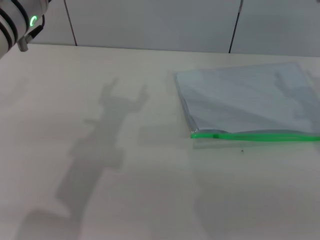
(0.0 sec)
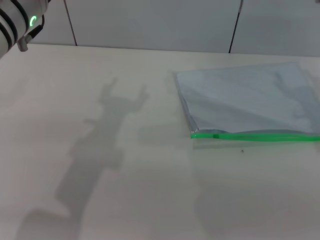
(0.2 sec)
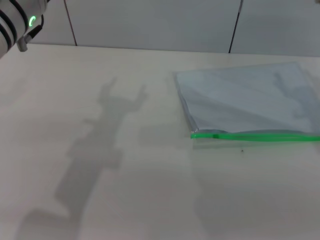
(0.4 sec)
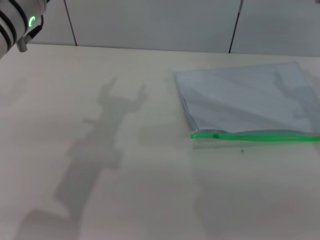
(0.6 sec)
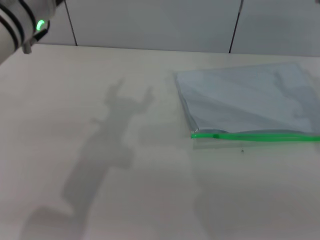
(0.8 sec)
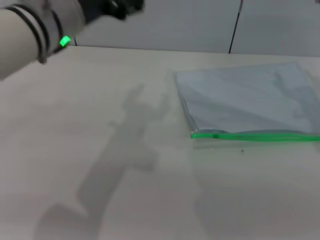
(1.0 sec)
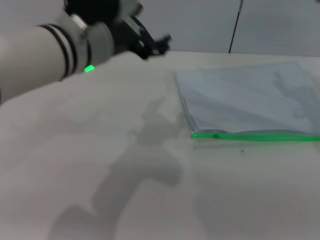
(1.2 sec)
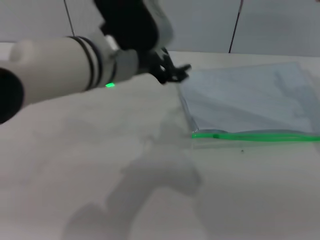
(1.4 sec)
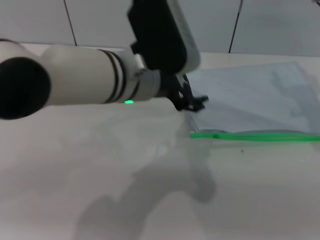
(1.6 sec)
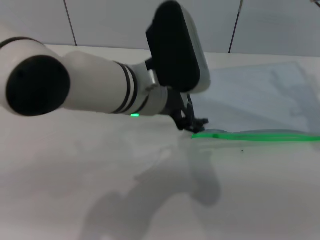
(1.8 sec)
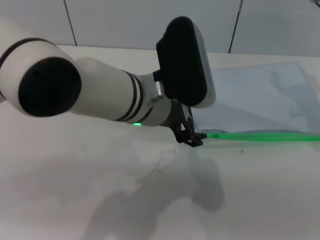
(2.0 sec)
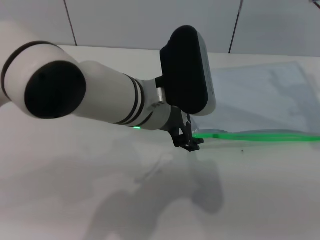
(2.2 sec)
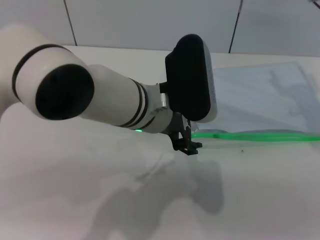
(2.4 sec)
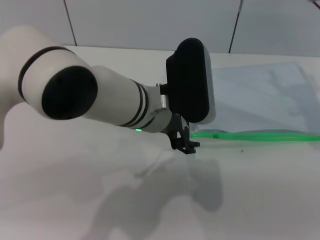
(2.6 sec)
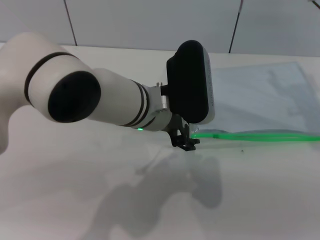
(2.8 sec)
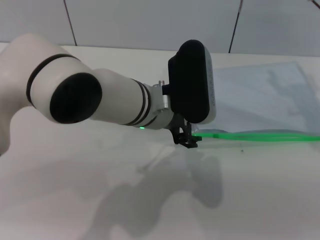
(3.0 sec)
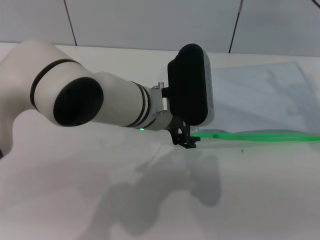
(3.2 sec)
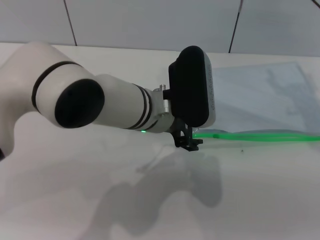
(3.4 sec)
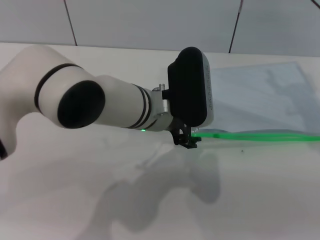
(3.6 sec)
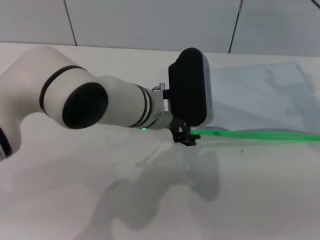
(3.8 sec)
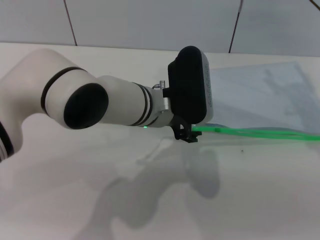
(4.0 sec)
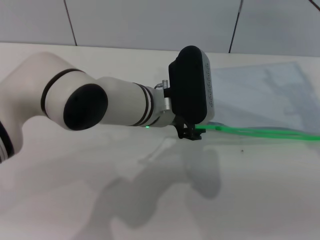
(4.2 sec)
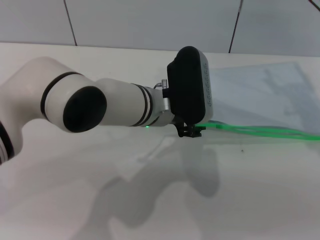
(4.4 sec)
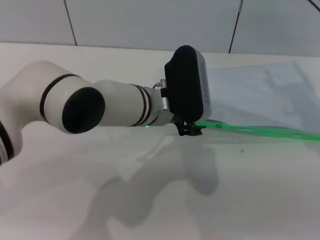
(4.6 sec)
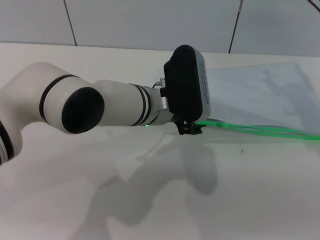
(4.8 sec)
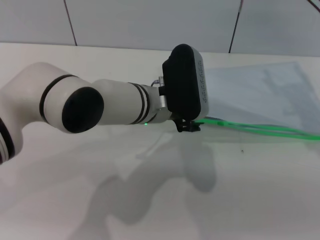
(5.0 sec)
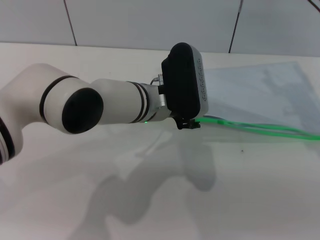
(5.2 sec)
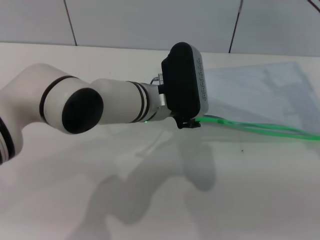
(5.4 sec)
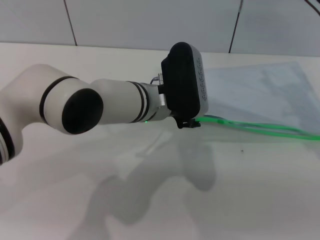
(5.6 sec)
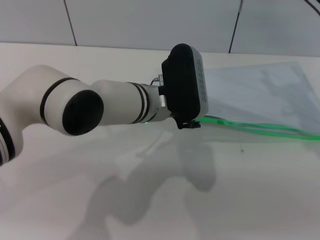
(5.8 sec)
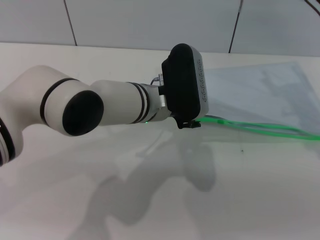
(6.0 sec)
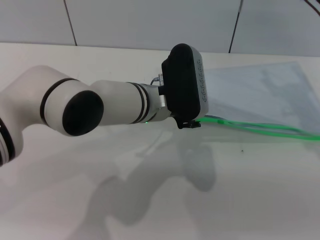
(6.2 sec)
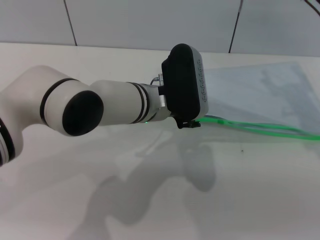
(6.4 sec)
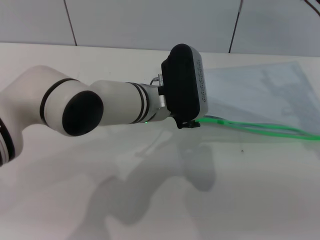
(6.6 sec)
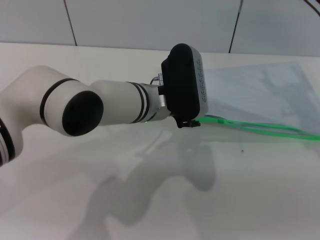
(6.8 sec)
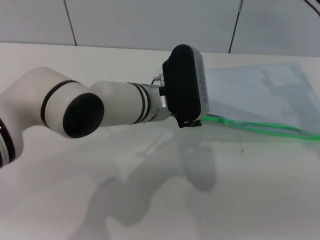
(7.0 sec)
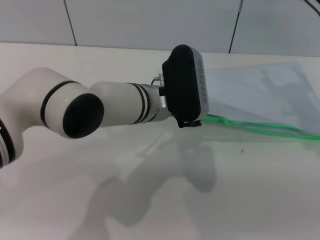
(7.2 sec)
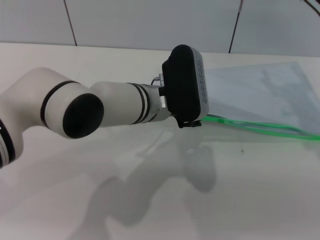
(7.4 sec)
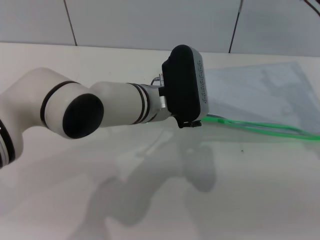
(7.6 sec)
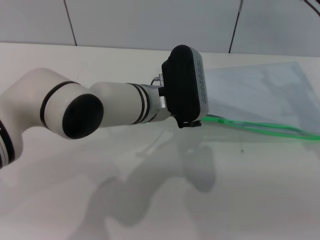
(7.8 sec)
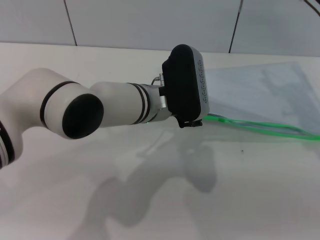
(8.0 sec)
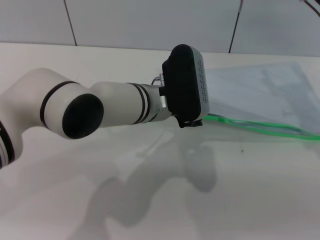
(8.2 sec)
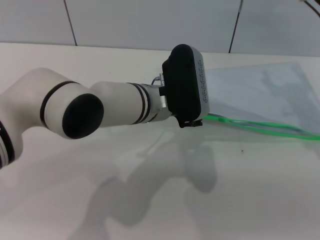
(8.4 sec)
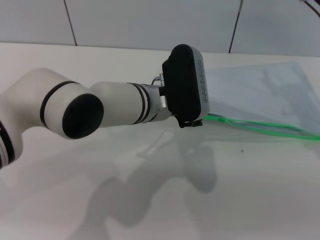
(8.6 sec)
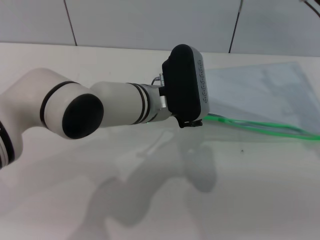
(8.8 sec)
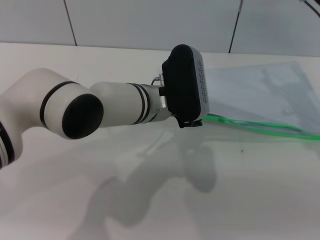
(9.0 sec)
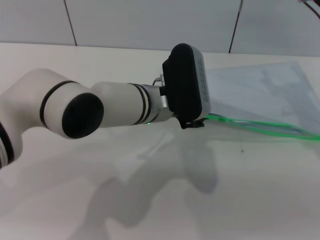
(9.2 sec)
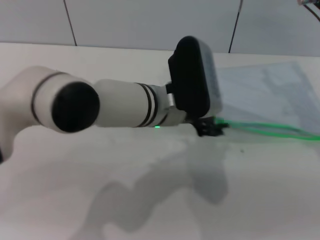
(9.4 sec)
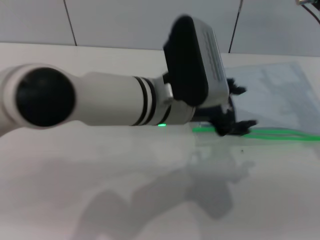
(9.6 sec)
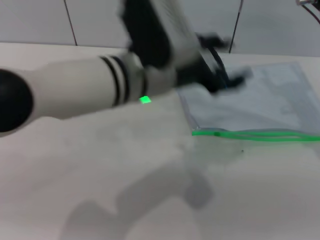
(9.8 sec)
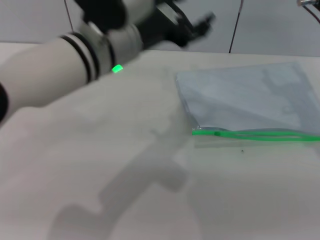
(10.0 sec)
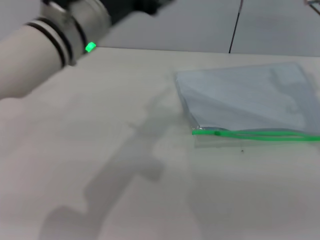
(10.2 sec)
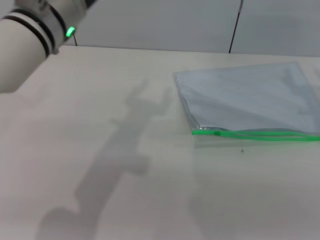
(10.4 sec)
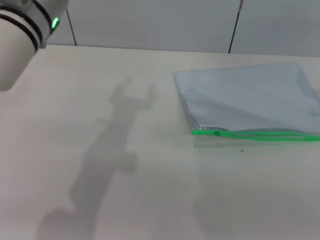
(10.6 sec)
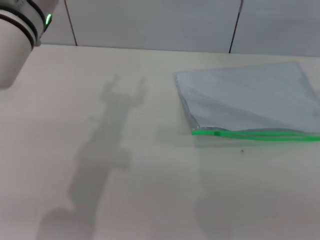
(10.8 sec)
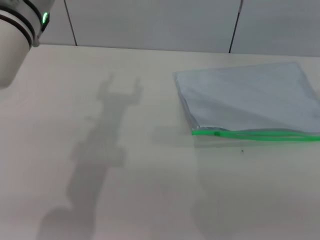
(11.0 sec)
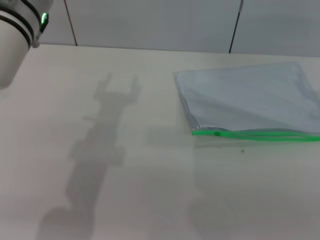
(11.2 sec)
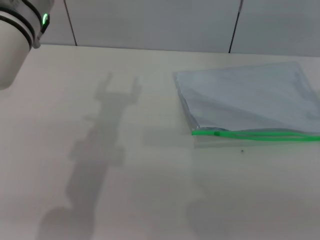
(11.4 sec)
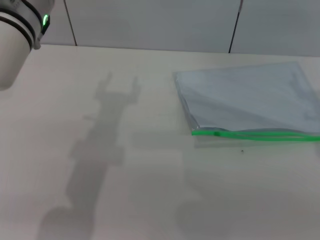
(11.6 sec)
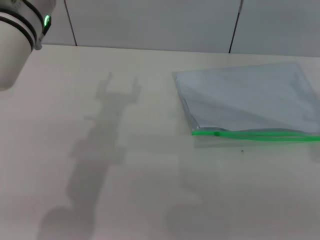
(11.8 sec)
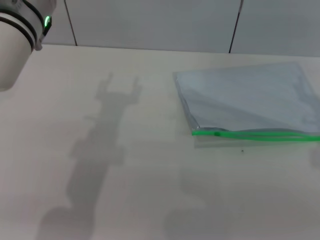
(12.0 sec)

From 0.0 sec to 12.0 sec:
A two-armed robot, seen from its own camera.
Step, from 0.0 sec to 8.6 sec: Pick up the transparent plastic bag with the left gripper.
From 0.0 sec to 1.6 sec: The left gripper shifts some 10 cm to the right.
From 1.6 sec to 3.0 sec: The left gripper moves approximately 5 cm.
From 3.0 sec to 4.4 sec: The left gripper closes.
From 4.4 sec to 6.0 sec: The two grippers keep their place.
From 6.0 sec to 9.0 sec: Neither gripper changes place.
From 9.0 sec to 10.4 sec: The left gripper travels upward and to the left by approximately 15 cm.
From 10.4 sec to 12.0 sec: There are only small adjustments of the grippers.

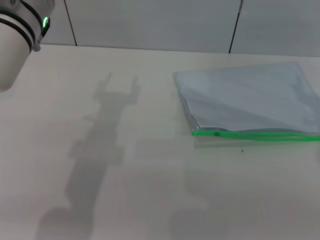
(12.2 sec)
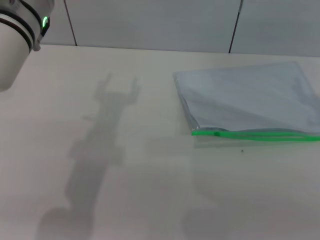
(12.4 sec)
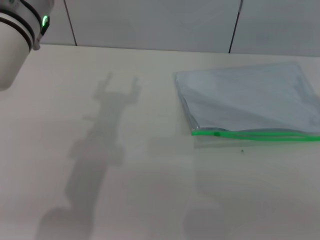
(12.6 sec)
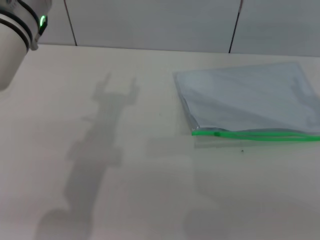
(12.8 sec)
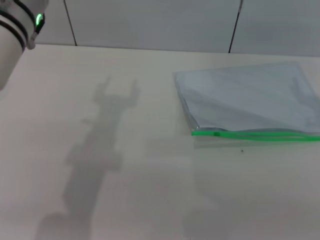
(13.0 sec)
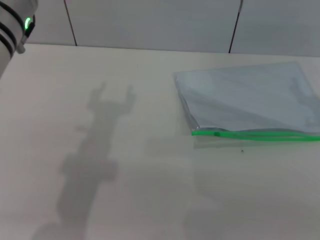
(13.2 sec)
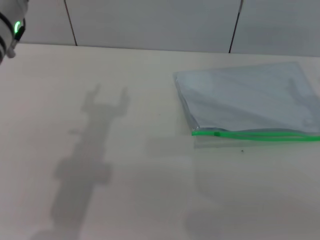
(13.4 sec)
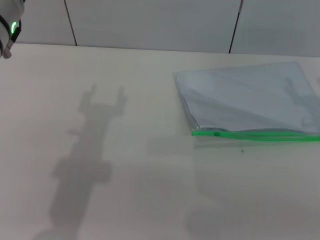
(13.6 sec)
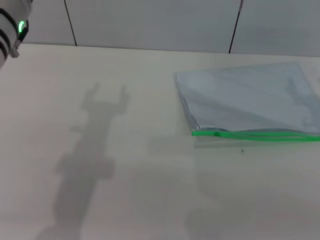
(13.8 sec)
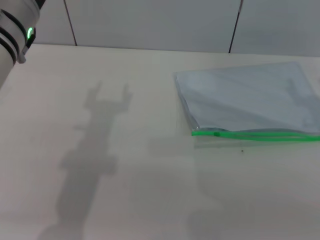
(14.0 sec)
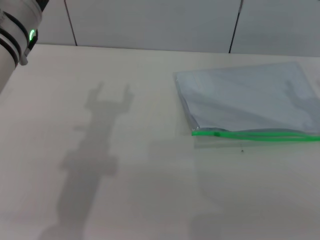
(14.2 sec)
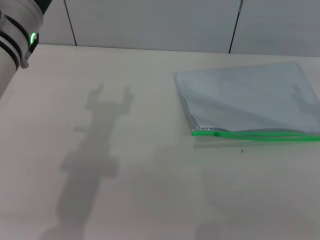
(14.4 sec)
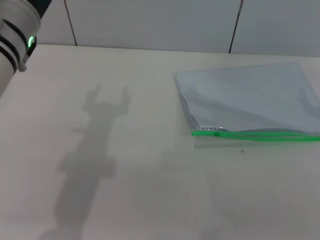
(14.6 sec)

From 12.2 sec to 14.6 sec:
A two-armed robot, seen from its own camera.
From 12.2 sec to 14.6 sec: There are only small adjustments of the grippers.
